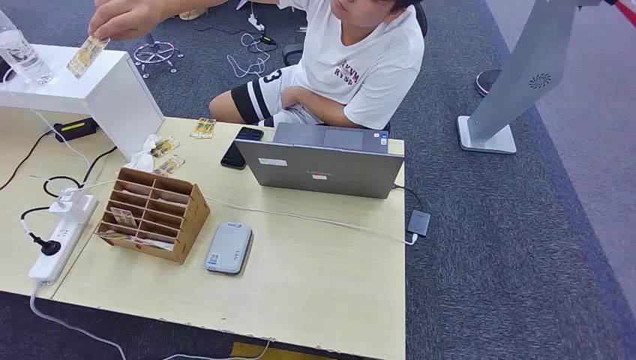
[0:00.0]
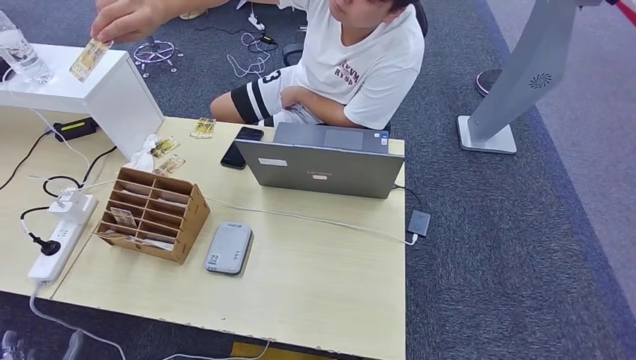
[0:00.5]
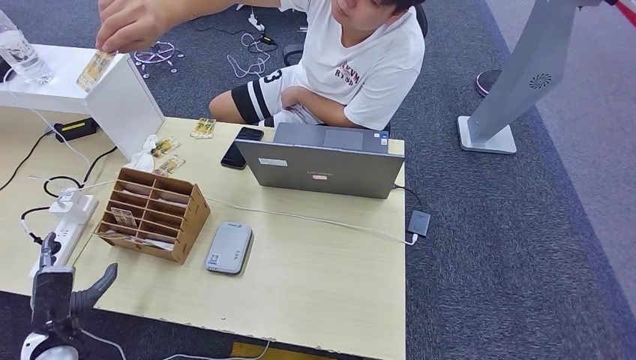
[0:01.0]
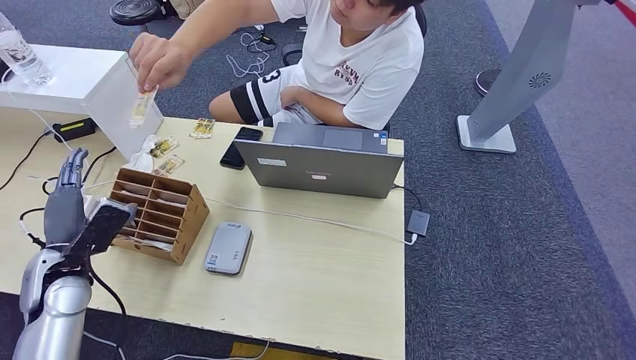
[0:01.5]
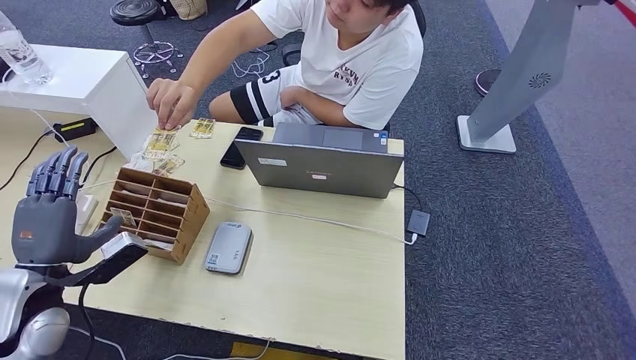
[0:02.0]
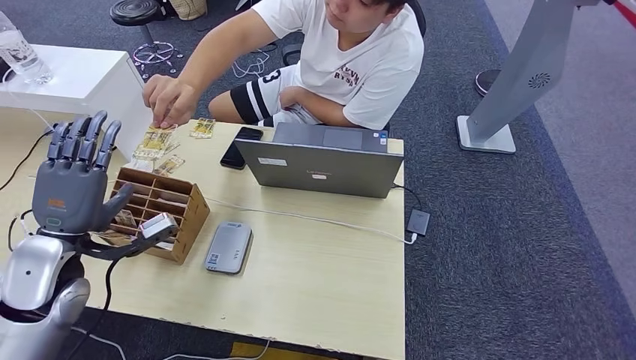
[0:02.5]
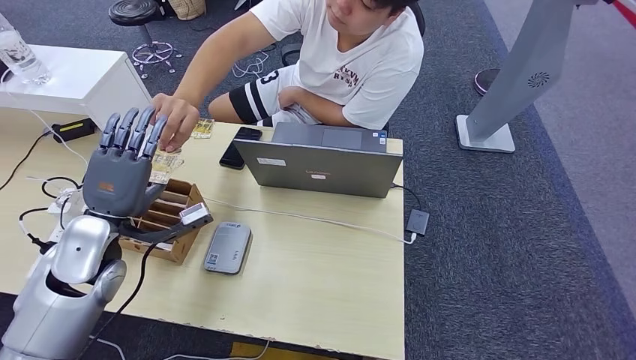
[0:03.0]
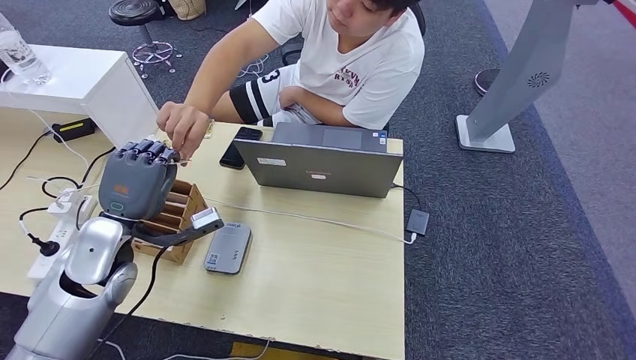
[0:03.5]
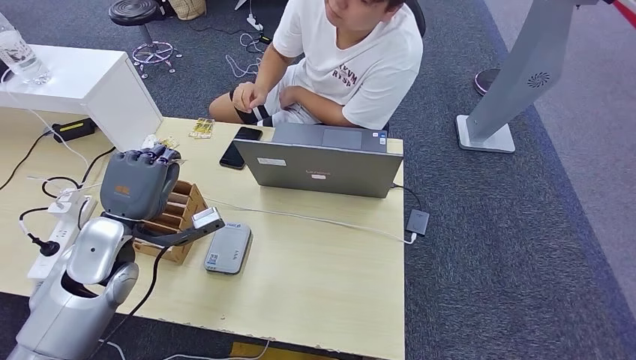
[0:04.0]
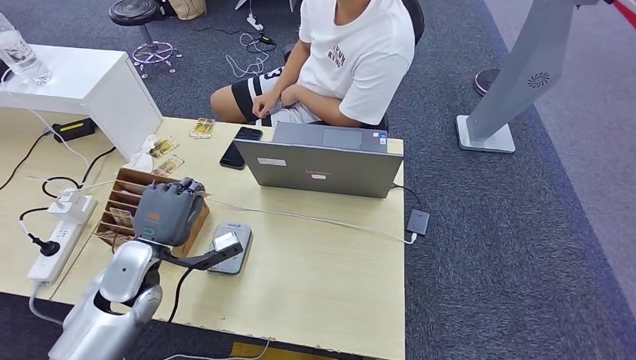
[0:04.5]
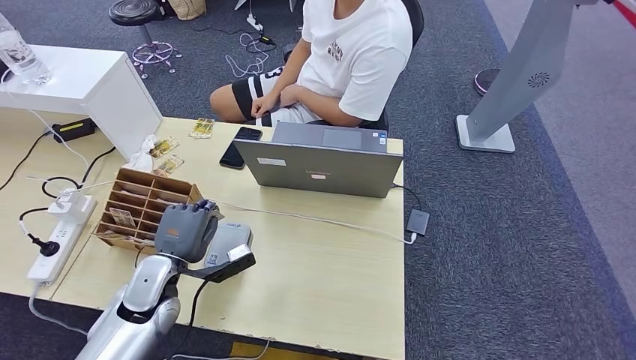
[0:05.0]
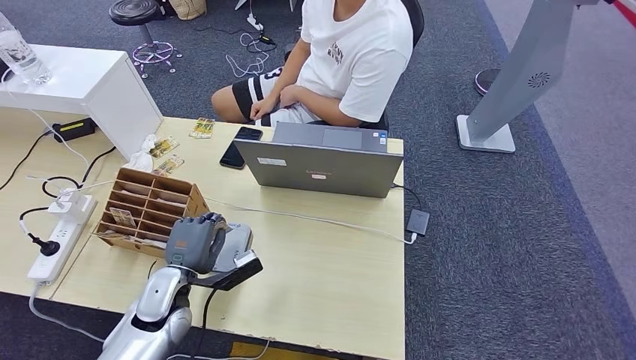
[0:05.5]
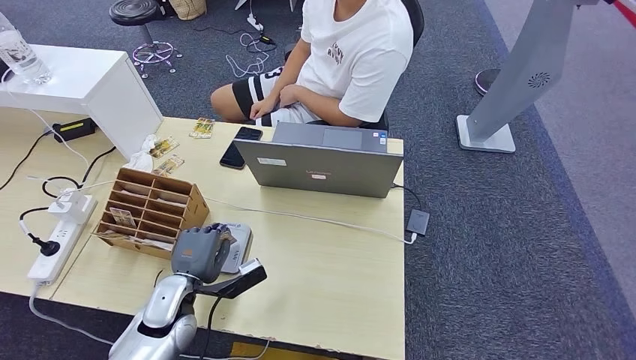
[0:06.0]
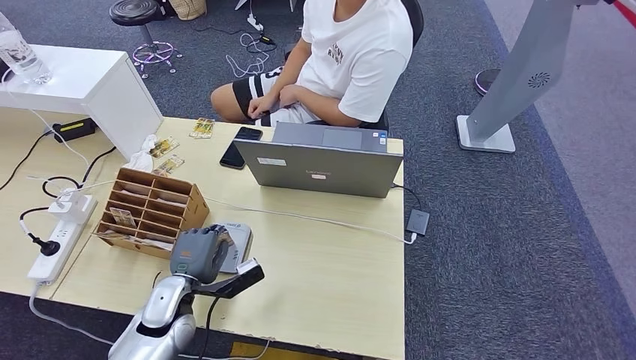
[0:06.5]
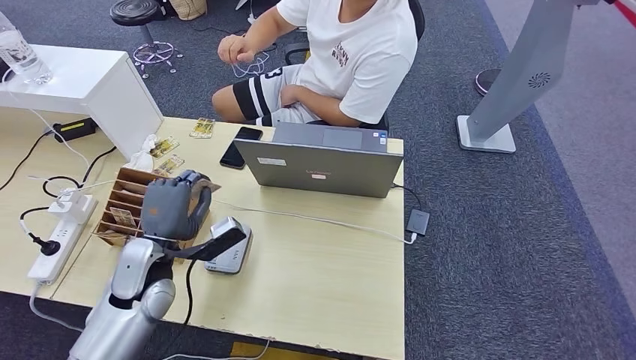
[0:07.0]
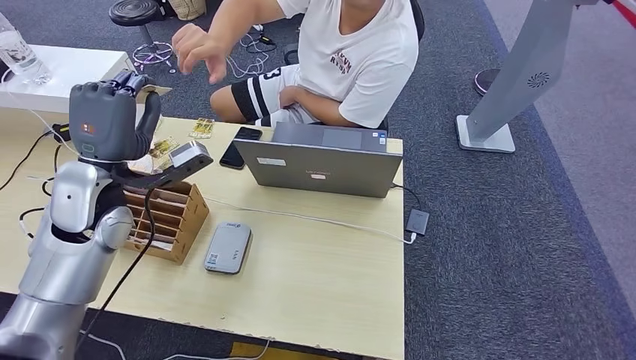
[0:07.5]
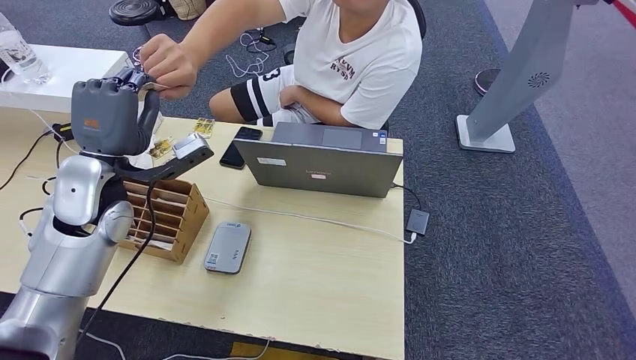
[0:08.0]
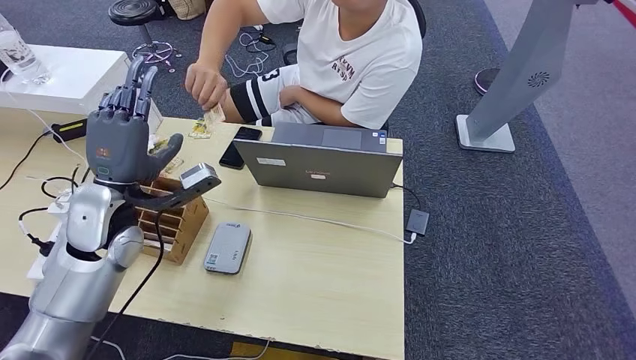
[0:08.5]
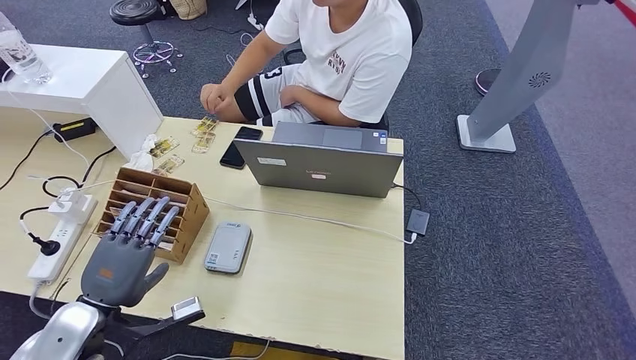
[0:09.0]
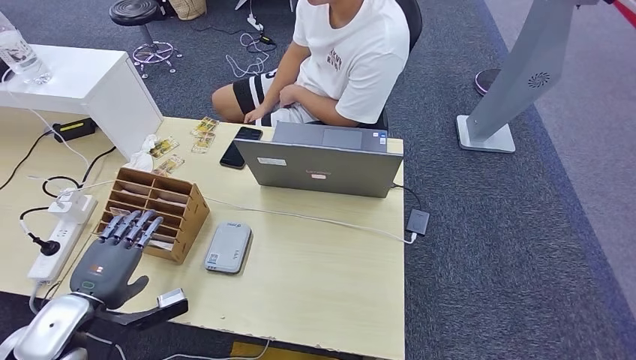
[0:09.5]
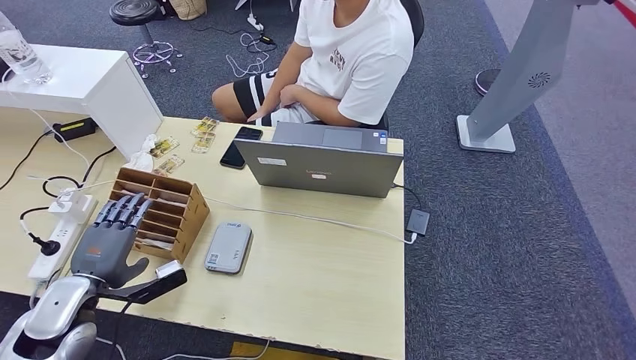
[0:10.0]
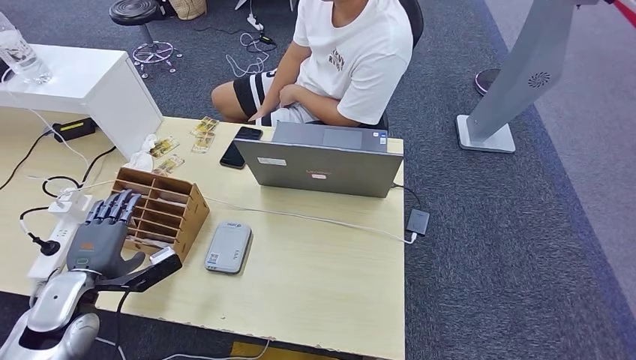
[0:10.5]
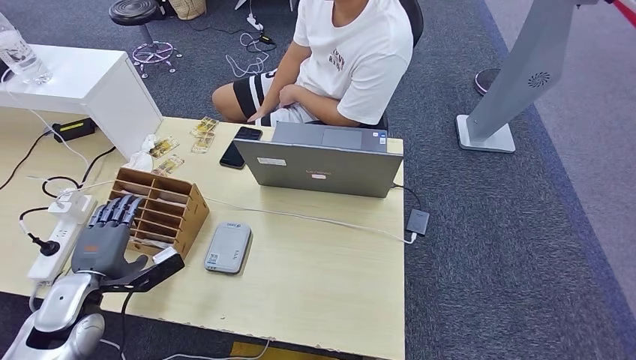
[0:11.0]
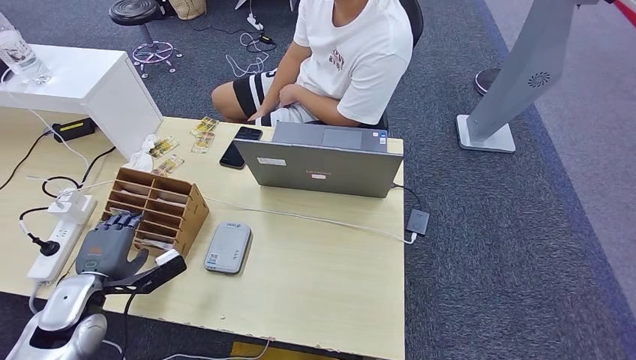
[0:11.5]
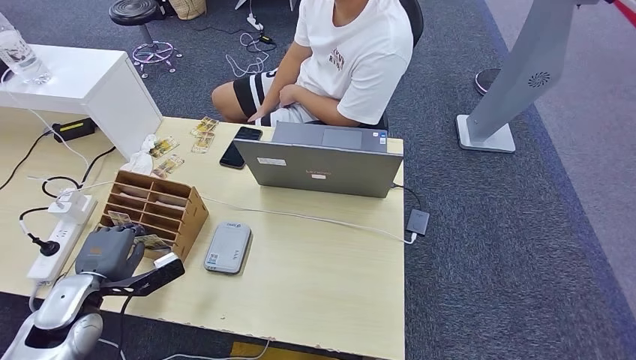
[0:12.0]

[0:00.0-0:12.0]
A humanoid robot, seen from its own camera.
Step, 0:00.0 to 0:03.5: Take the ID card from the person's hand.
Step, 0:04.0 to 0:05.5: Place the ID card on the card reader.
Step, 0:06.0 to 0:09.0: Hand the ID card to the person.
0:02.0 to 0:04.0: The left hand shifts about 10 cm to the right and forward.
0:04.0 to 0:06.0: The left hand travels downward and to the right by some 15 cm.
0:10.0 to 0:12.0: The hands make only small movements.

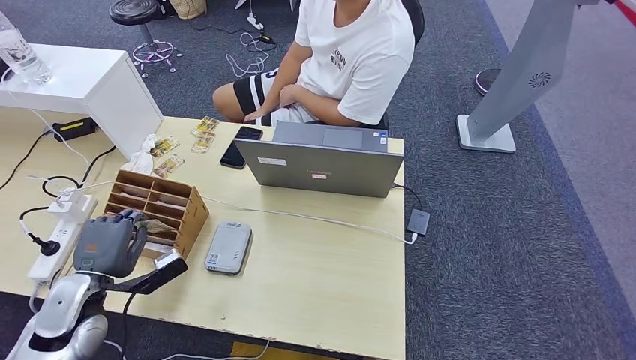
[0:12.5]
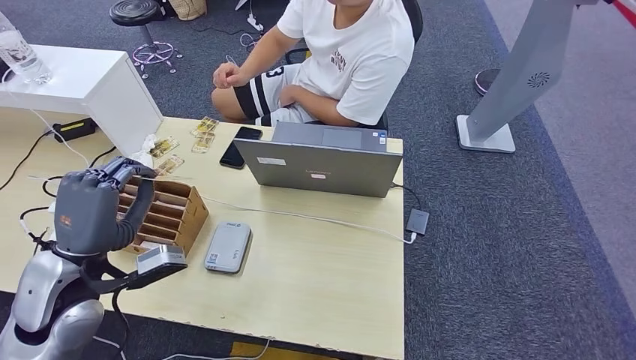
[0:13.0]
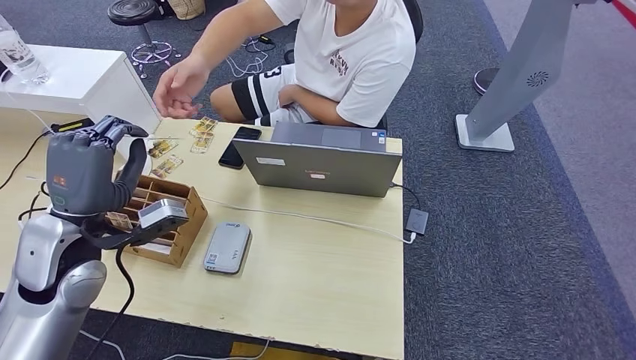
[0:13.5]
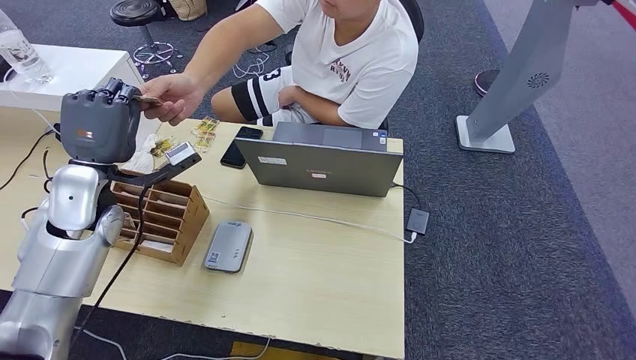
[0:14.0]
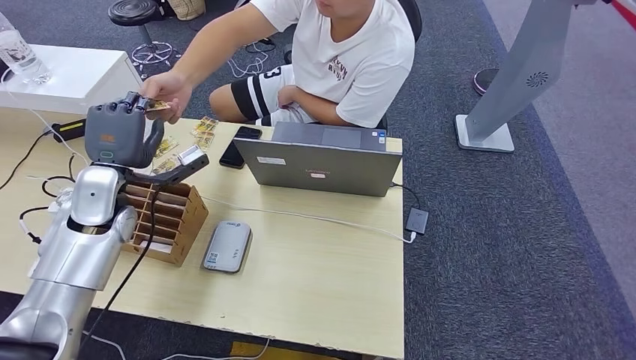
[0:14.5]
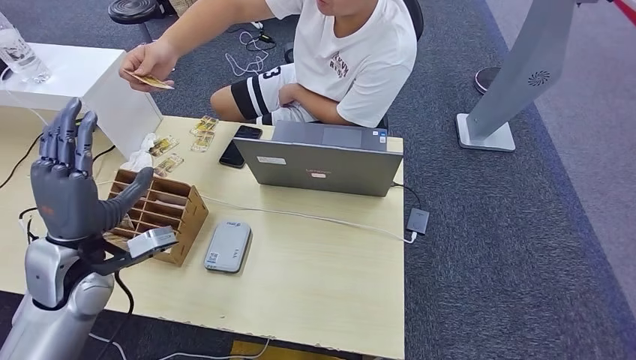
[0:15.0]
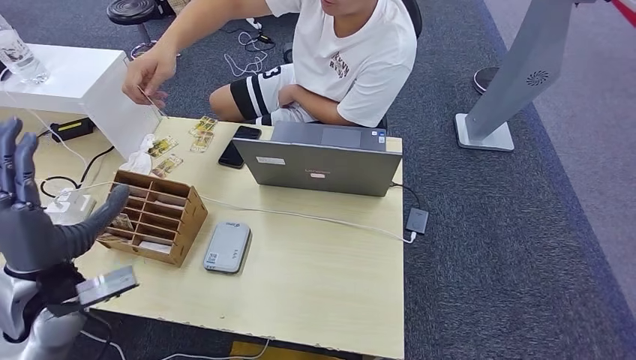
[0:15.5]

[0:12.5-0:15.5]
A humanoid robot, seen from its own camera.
Step, 0:13.5 to 0:15.5: Hand the room key to the person.
